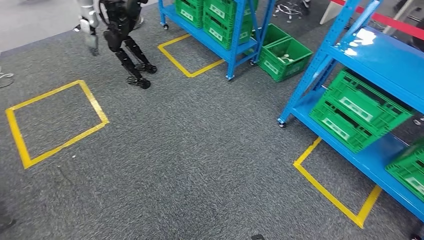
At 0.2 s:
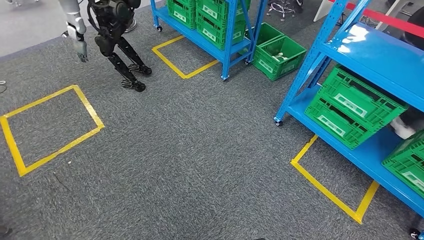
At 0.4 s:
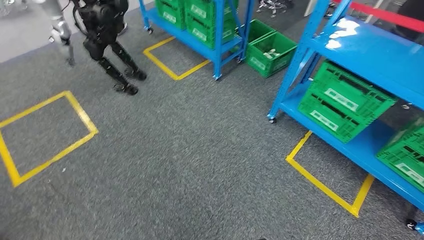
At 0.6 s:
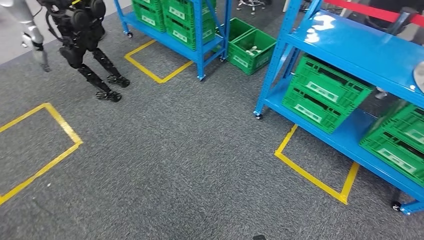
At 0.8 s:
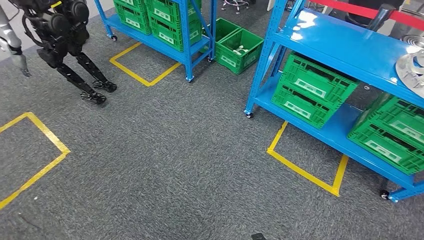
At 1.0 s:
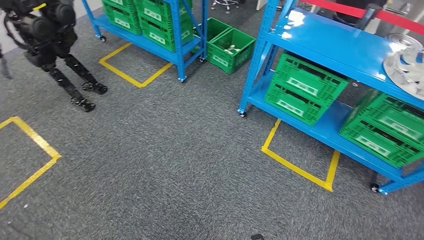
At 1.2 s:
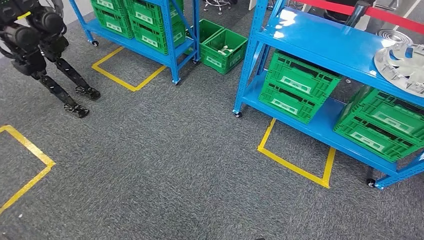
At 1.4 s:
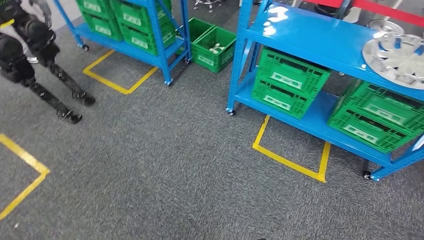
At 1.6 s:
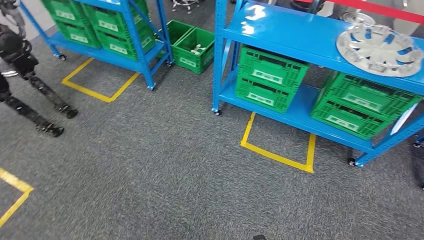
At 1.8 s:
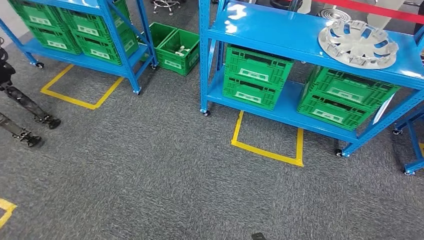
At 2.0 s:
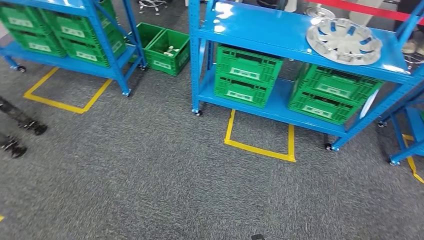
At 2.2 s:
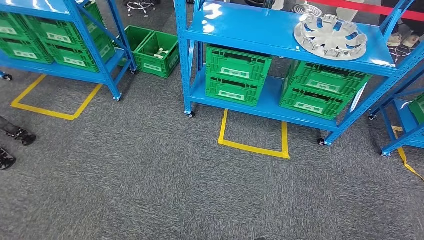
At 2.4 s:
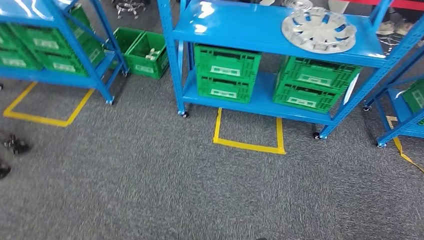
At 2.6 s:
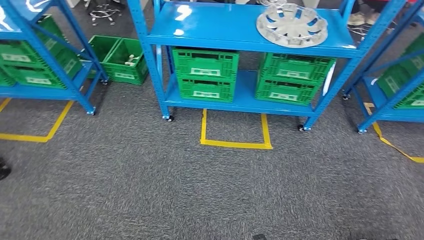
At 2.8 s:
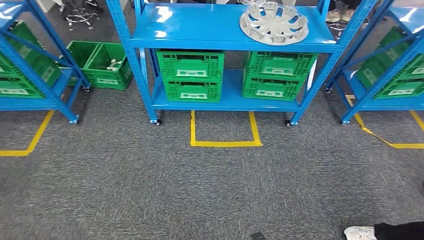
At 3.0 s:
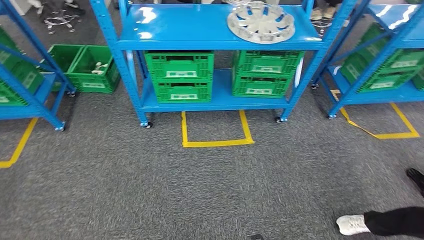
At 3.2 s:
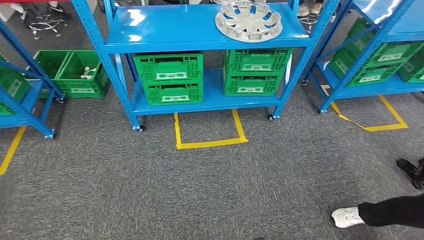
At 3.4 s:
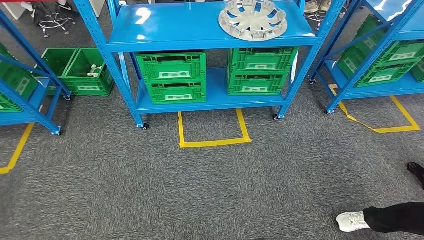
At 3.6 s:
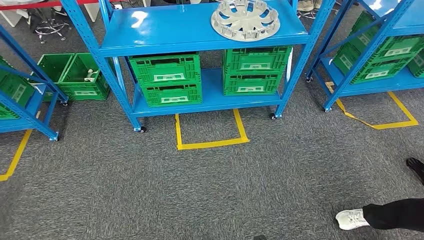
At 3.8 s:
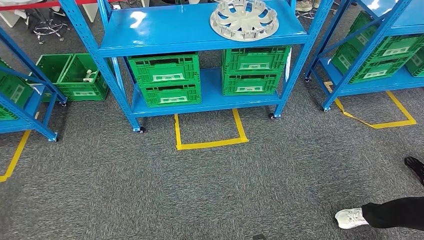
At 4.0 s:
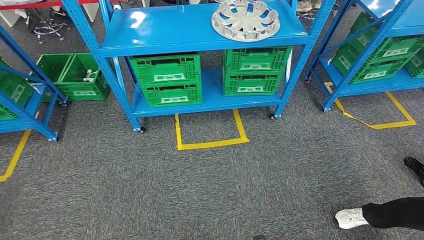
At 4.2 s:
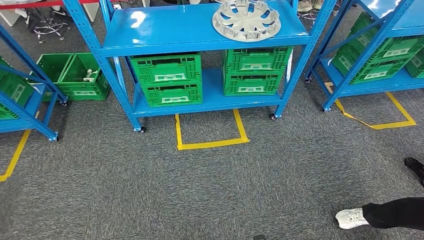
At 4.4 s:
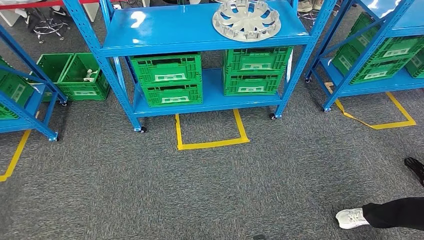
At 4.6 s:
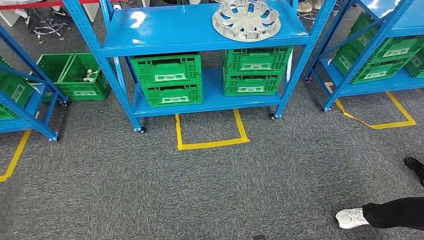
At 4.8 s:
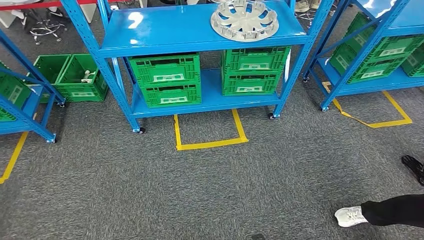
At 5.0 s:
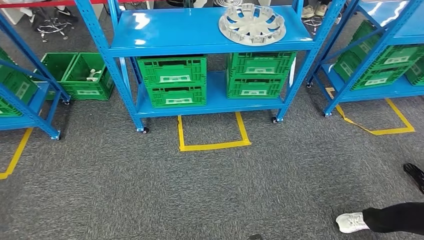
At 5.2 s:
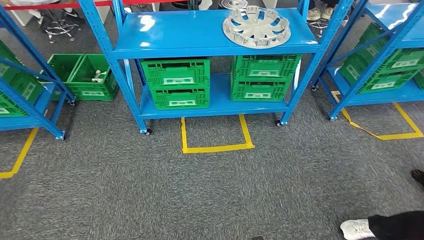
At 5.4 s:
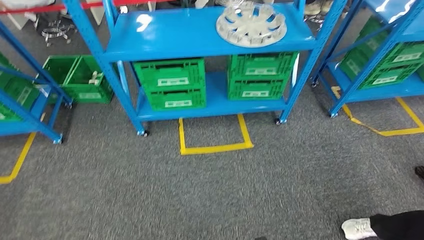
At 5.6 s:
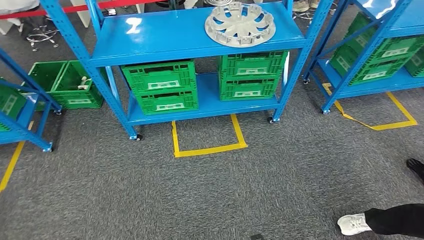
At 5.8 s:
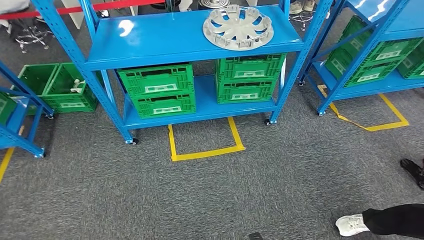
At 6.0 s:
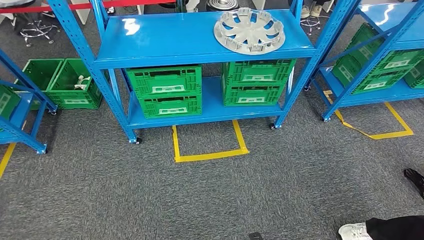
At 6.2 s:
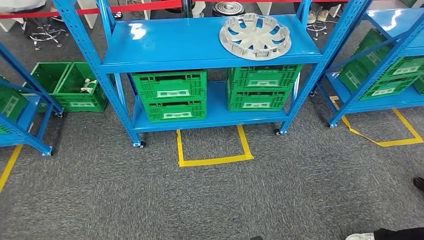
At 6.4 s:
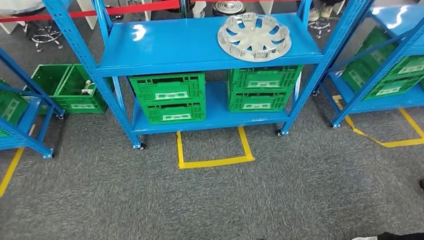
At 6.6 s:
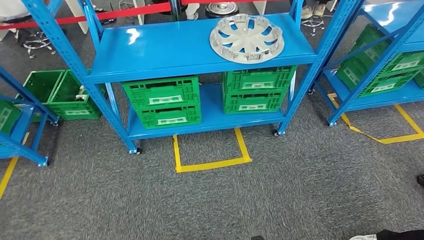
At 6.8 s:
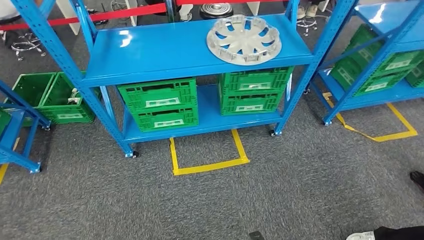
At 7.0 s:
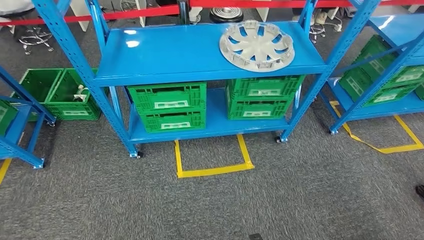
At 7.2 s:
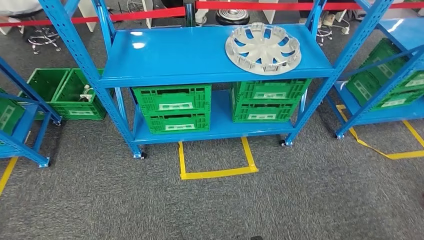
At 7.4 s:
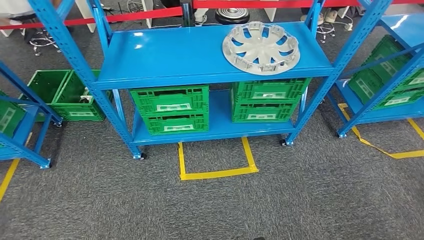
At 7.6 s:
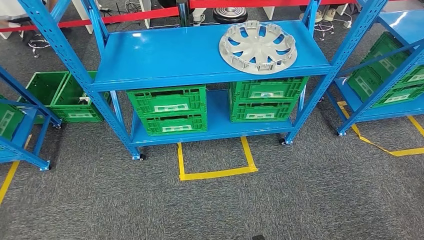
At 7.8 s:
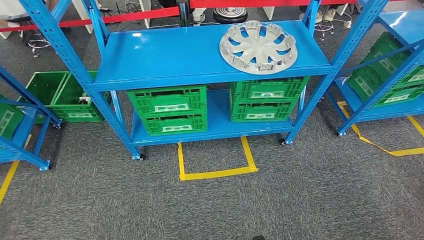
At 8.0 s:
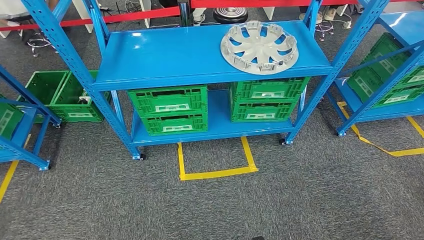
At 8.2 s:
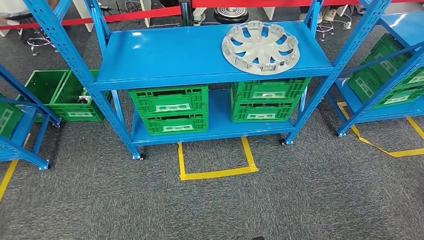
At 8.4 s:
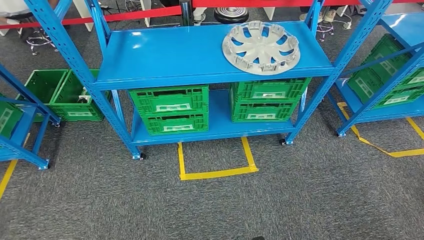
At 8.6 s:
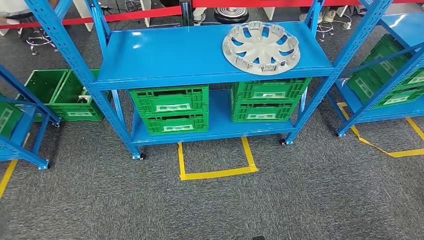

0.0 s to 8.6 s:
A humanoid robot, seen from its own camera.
Step, 0.0 to 8.4 s: Return to the initial position at the workbench.
7.2 to 8.6 s: Both hands stay put.

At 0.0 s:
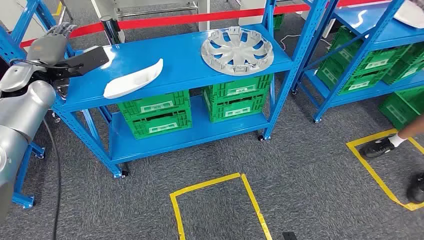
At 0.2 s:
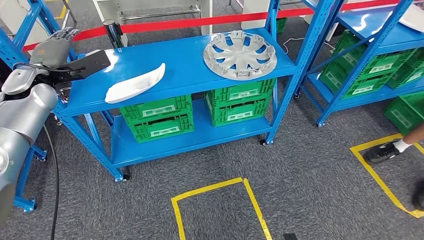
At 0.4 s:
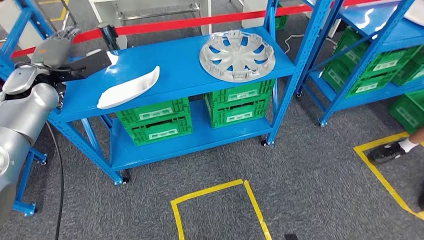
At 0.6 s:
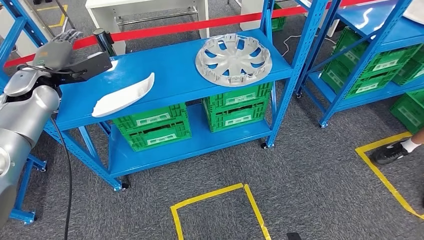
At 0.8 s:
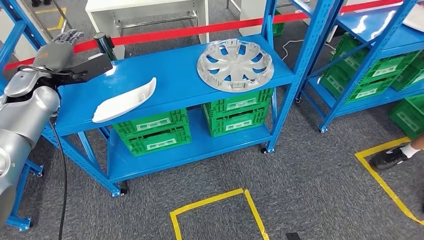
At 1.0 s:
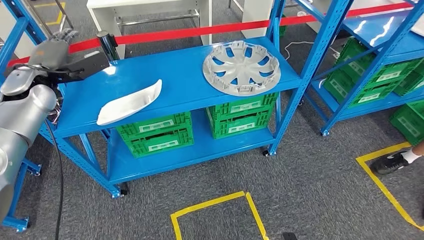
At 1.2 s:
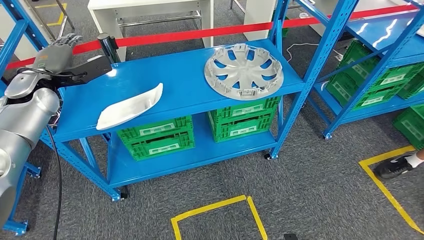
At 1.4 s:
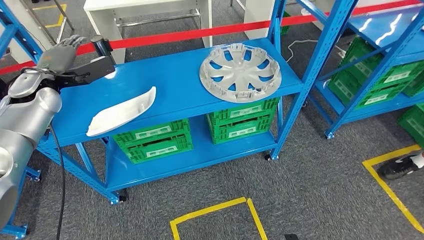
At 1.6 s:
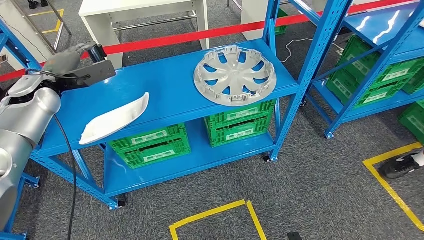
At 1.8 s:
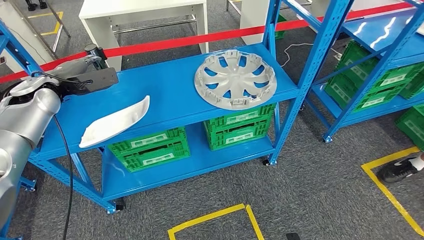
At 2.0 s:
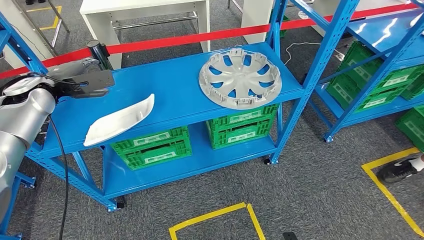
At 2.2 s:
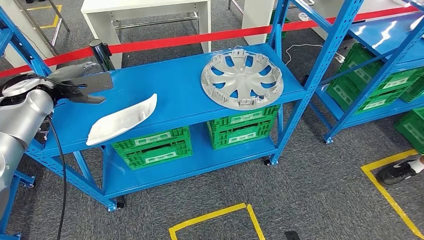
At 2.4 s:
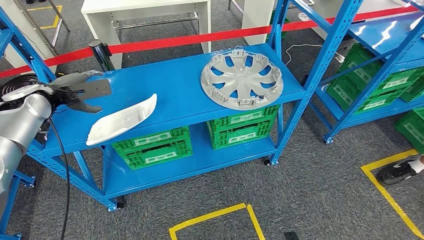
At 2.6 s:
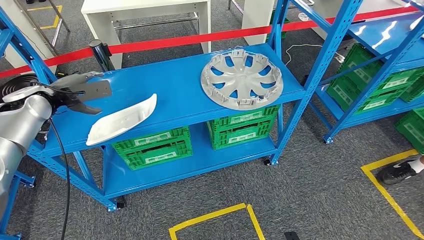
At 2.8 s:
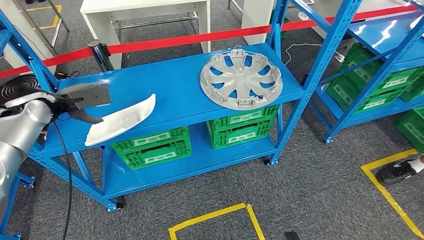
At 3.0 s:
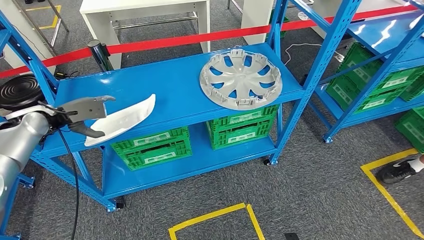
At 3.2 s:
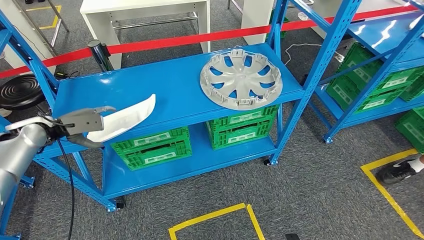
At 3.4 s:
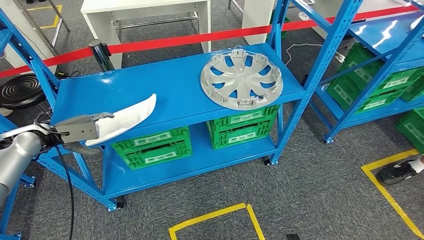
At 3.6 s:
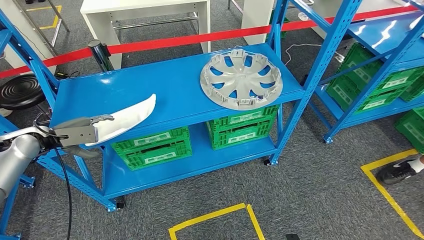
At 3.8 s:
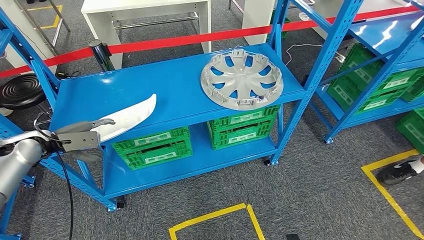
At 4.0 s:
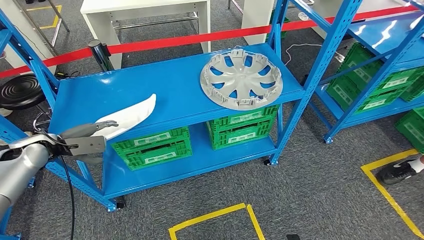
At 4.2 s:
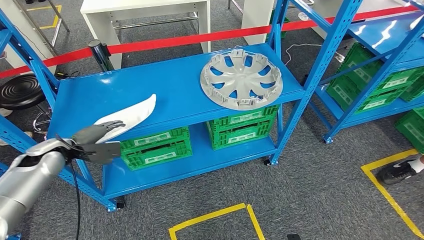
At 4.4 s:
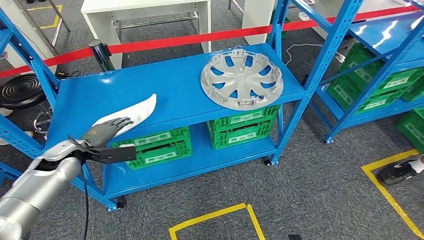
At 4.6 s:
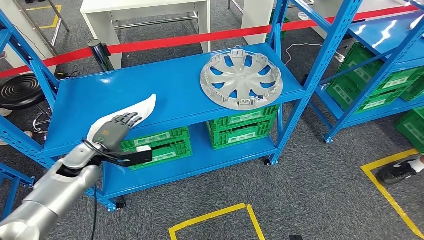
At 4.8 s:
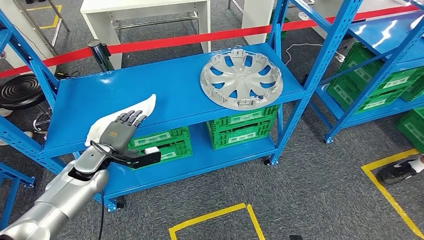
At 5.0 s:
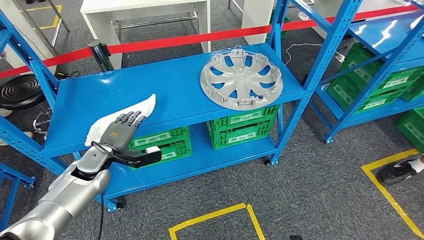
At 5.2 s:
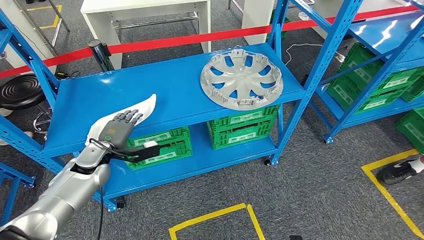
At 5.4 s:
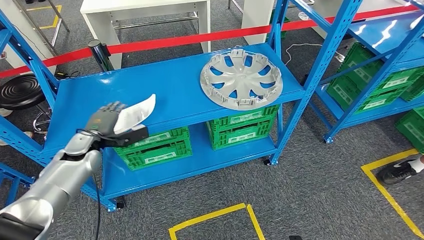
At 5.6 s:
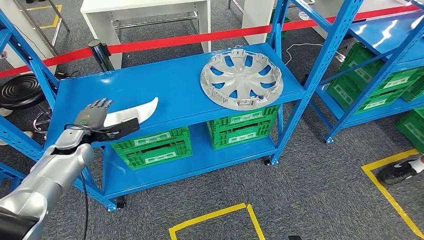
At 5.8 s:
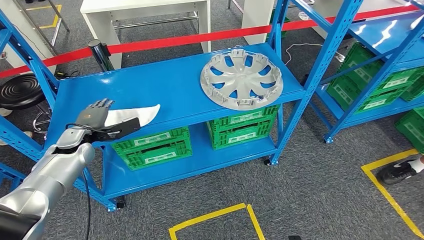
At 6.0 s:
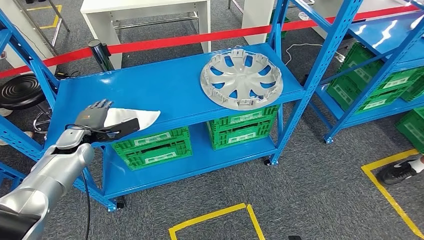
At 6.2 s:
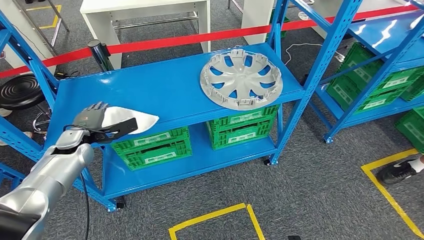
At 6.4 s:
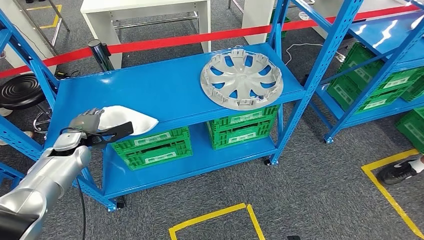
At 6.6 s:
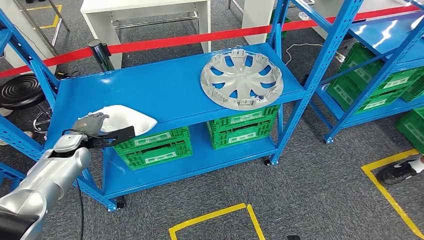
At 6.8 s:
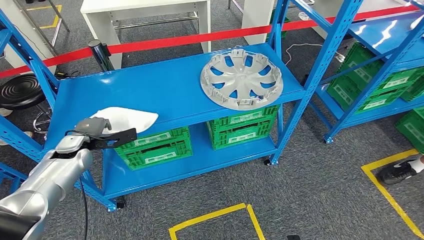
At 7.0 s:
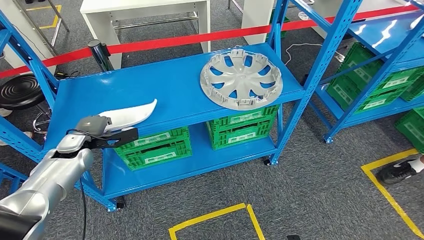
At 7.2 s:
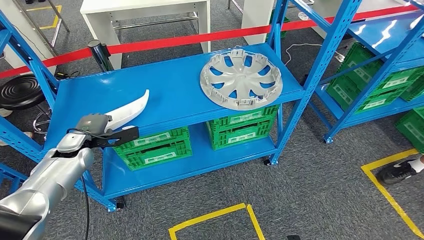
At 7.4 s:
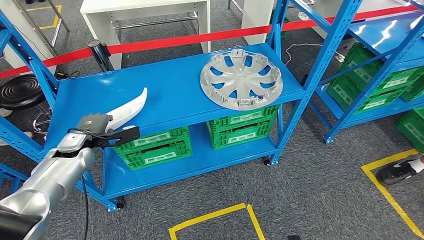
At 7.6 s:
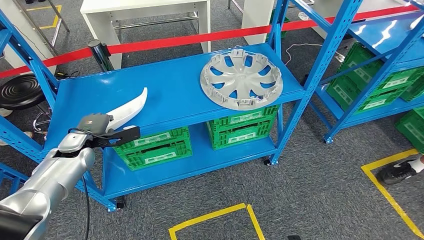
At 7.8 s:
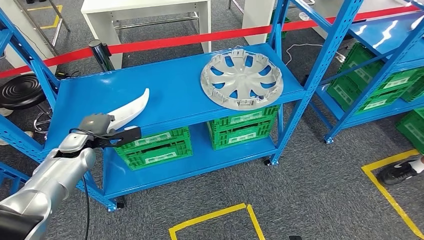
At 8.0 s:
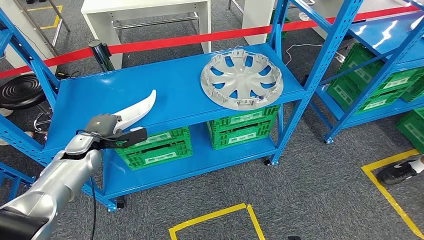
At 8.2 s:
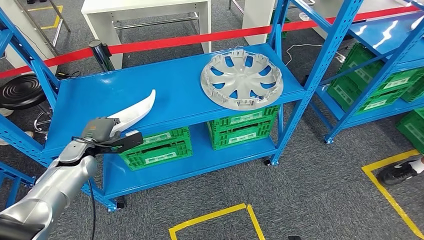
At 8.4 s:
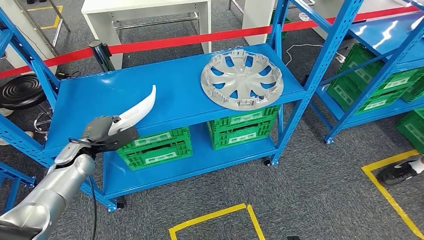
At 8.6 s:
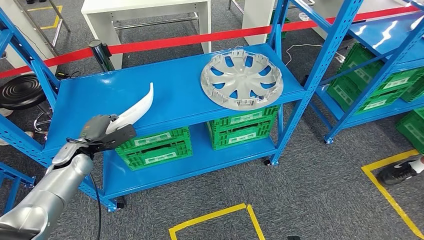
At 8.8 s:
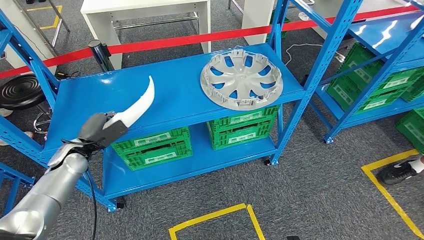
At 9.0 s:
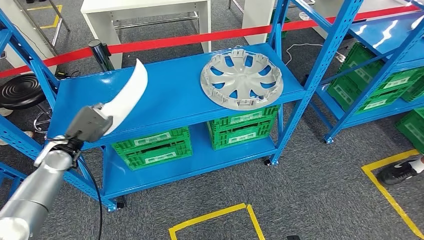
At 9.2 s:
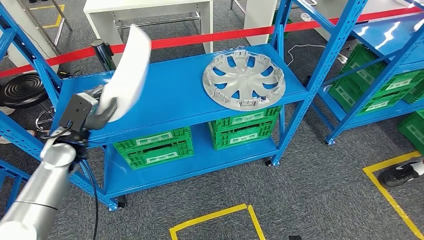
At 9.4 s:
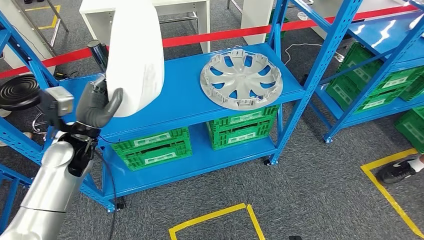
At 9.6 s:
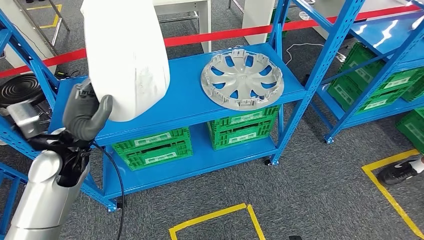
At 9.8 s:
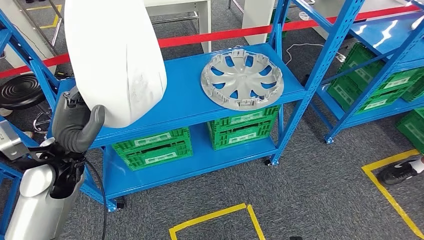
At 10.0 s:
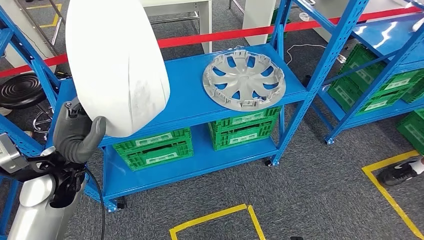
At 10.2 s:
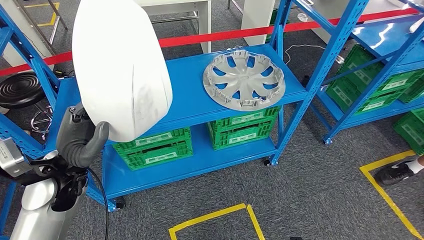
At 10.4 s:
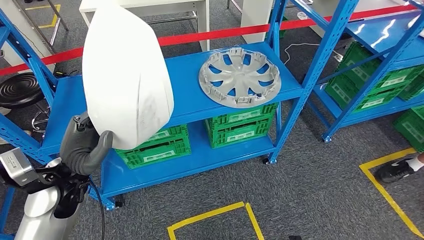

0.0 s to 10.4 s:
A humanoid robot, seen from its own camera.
3.0 to 4.4 s: The left hand goes about 15 cm downward, backward and to the right.
6.0 to 7.4 s: The hands move only a little.
